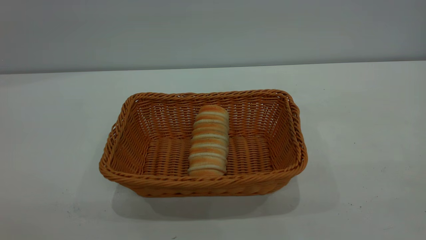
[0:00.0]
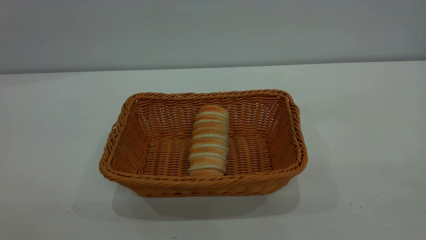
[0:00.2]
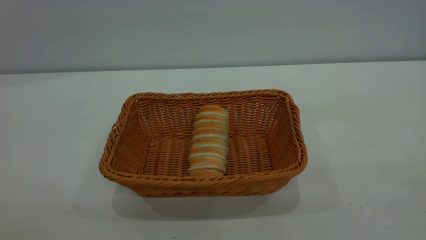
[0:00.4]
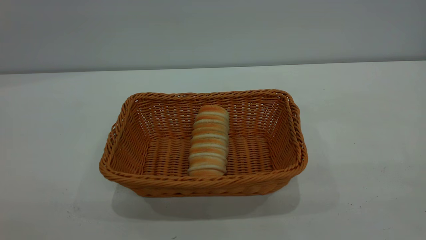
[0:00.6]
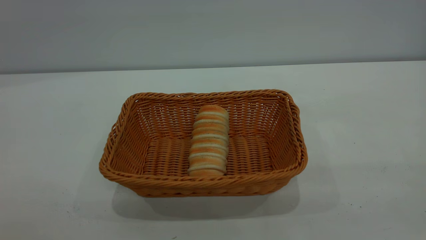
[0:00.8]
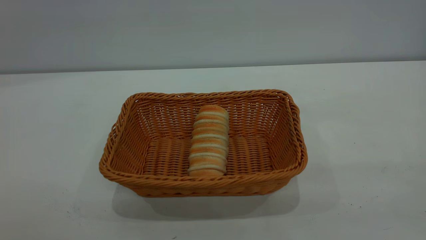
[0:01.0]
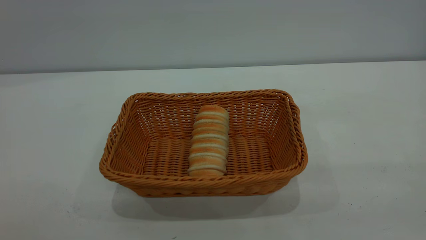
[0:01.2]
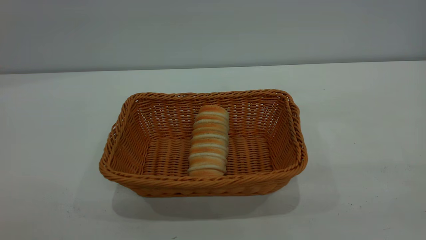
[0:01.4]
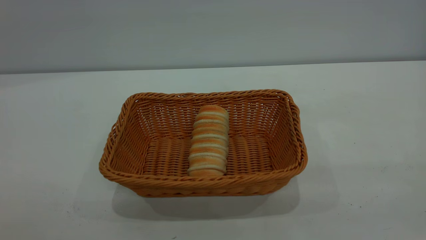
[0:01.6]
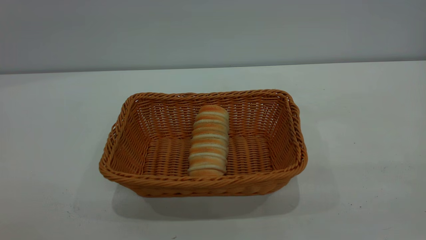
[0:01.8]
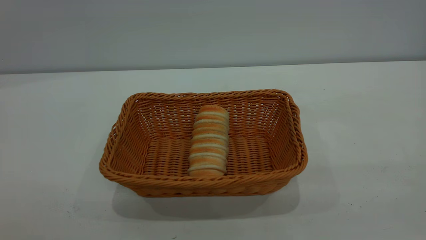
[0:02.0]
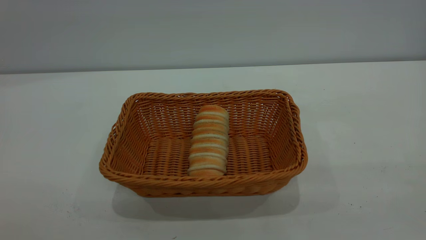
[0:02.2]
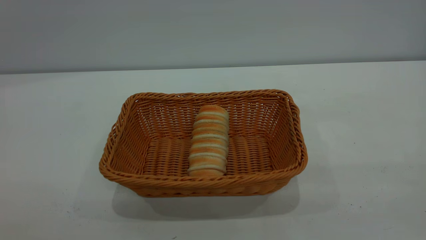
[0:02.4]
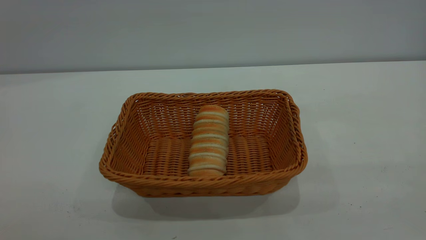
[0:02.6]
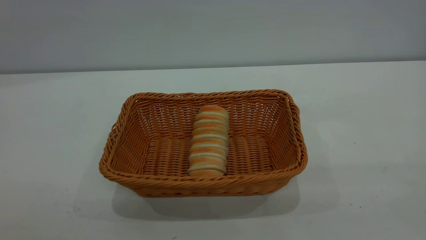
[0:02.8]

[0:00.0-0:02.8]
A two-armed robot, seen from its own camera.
Task of the whole recording: One hand grasps the yellow basket and places it in the middle of the table, while the other hand picks up the long bread and puts it into the yellow basket.
0:01.4 to 0:02.8: The two grippers keep their place.

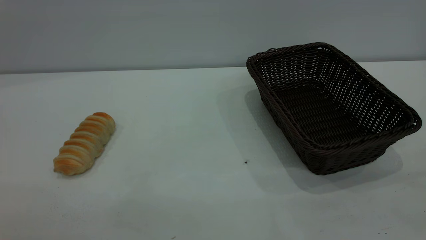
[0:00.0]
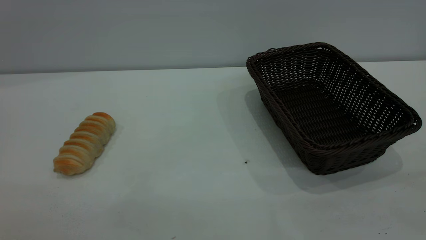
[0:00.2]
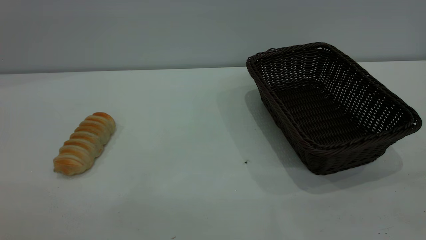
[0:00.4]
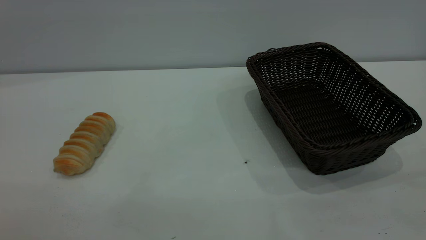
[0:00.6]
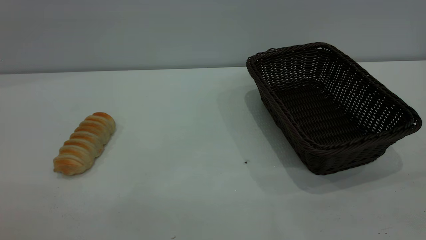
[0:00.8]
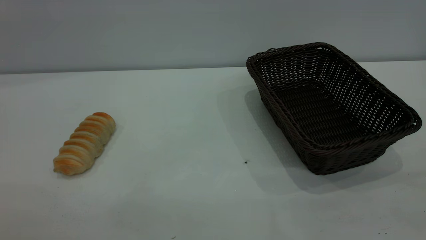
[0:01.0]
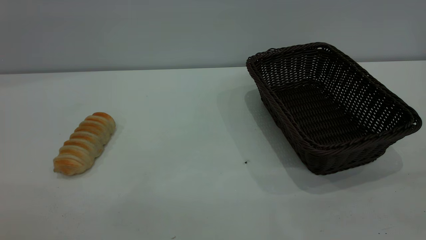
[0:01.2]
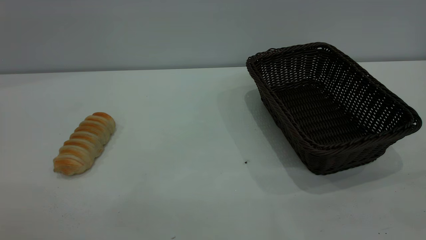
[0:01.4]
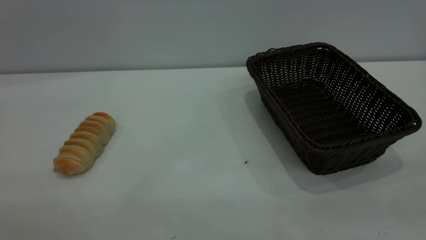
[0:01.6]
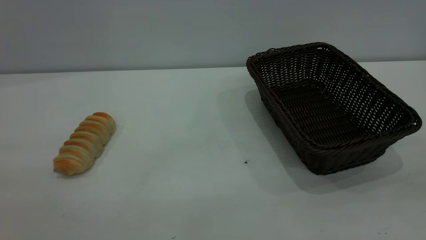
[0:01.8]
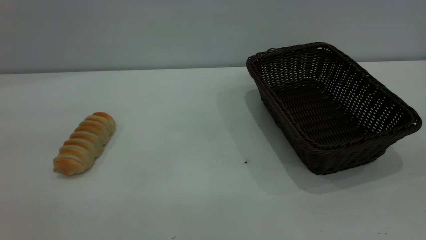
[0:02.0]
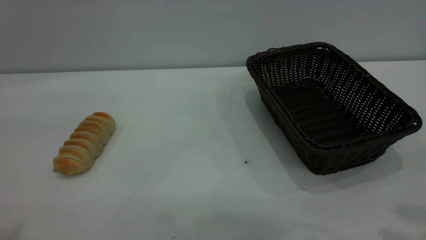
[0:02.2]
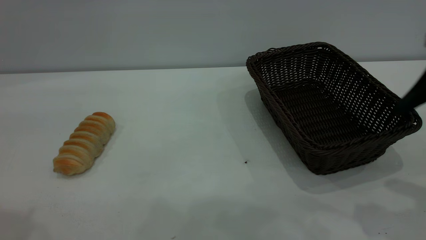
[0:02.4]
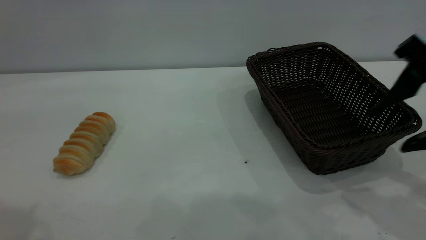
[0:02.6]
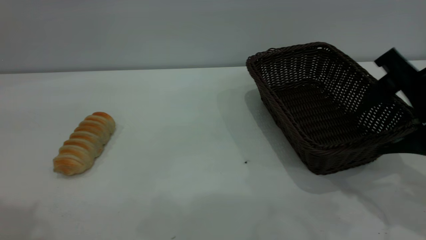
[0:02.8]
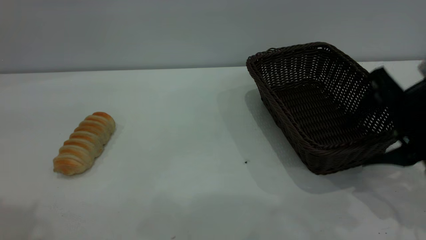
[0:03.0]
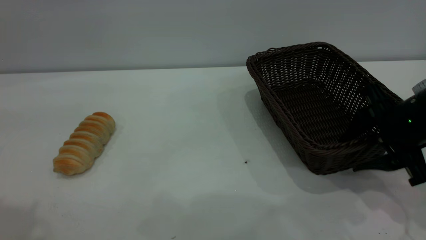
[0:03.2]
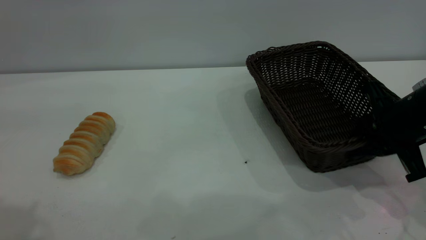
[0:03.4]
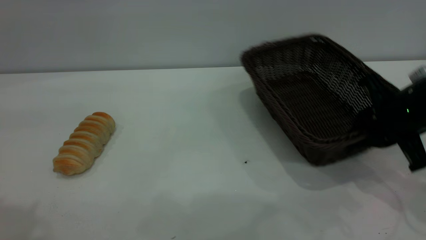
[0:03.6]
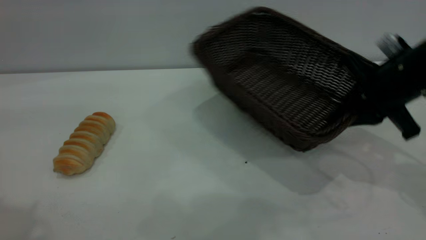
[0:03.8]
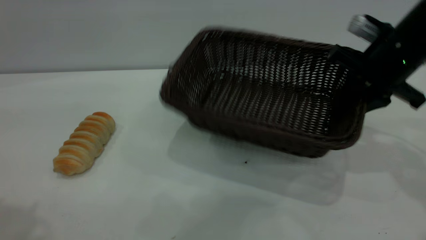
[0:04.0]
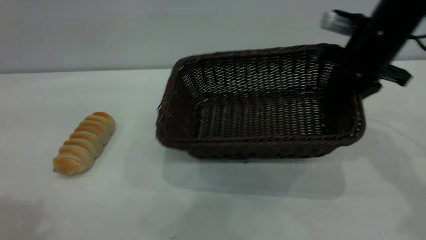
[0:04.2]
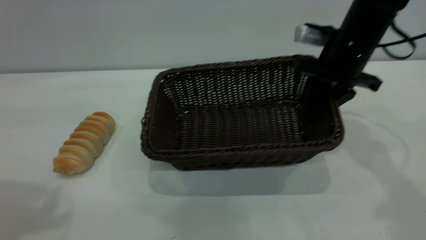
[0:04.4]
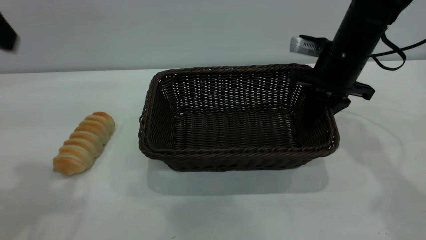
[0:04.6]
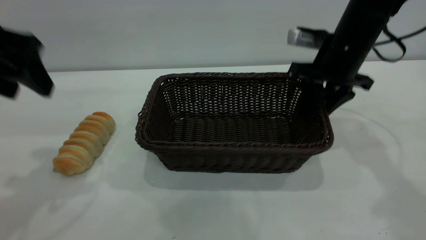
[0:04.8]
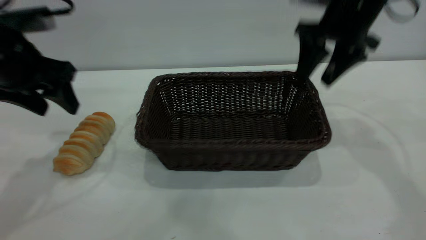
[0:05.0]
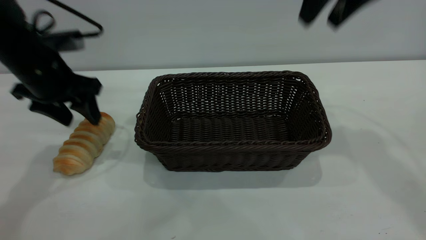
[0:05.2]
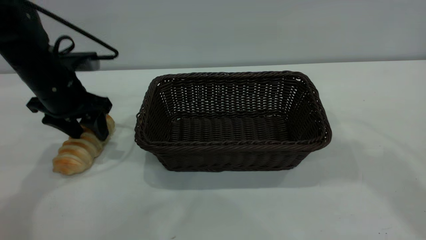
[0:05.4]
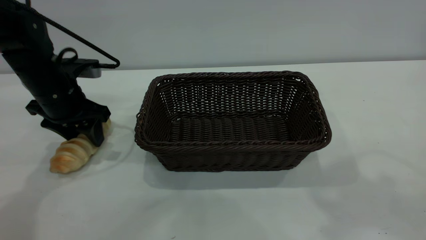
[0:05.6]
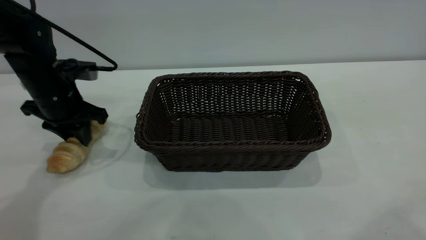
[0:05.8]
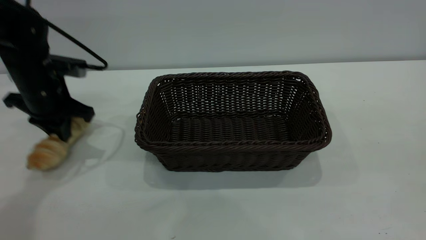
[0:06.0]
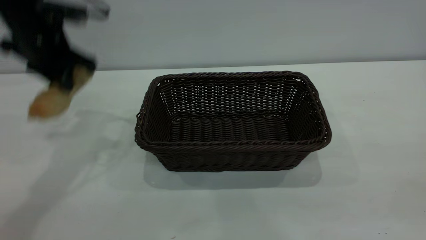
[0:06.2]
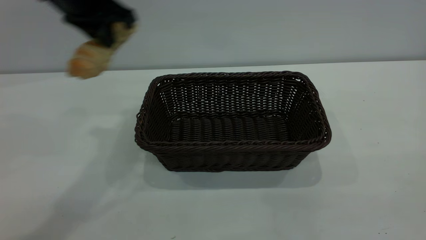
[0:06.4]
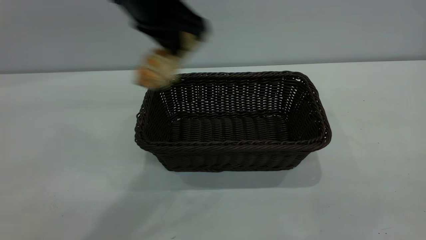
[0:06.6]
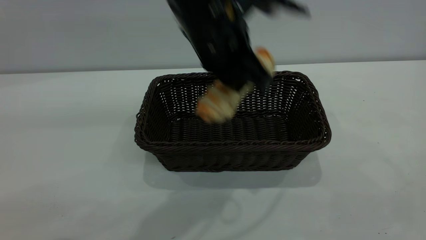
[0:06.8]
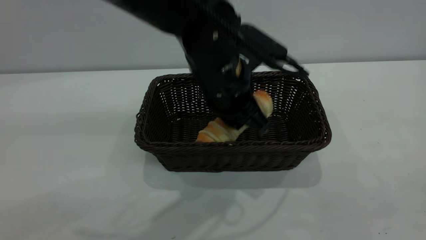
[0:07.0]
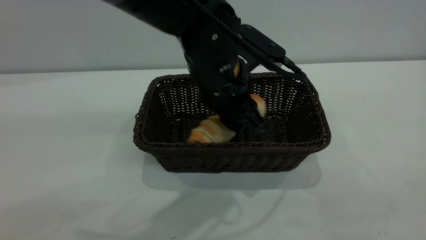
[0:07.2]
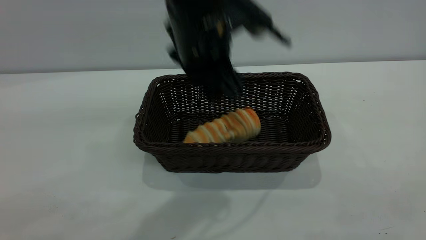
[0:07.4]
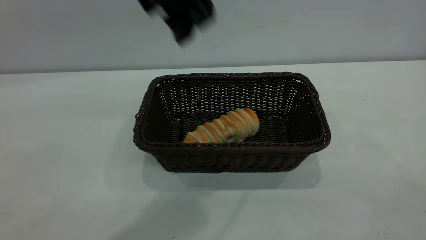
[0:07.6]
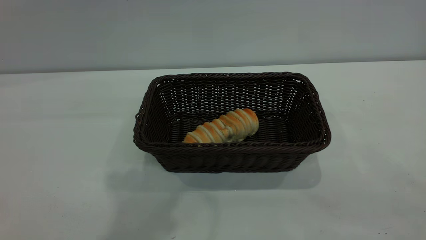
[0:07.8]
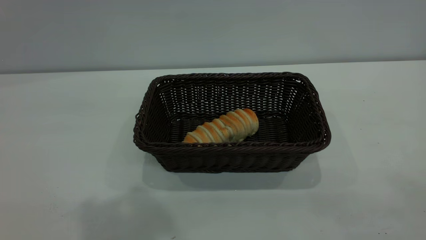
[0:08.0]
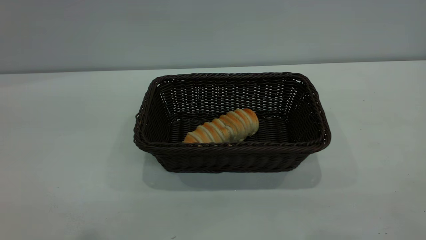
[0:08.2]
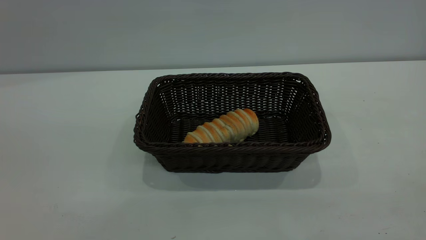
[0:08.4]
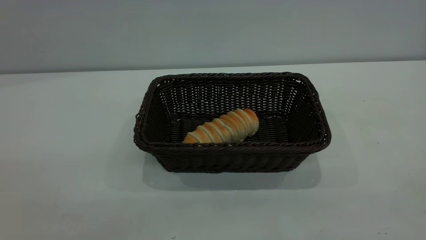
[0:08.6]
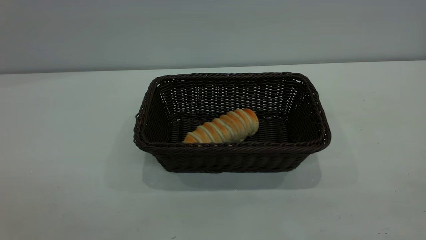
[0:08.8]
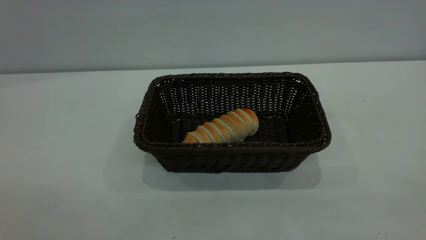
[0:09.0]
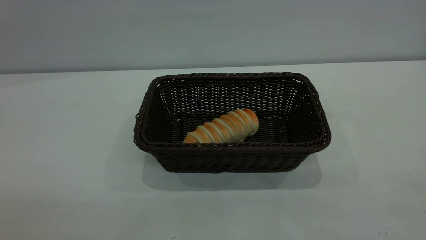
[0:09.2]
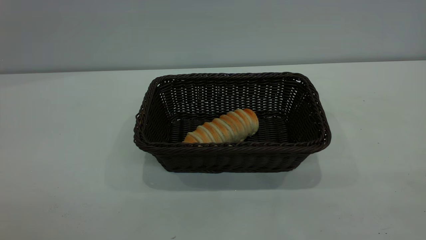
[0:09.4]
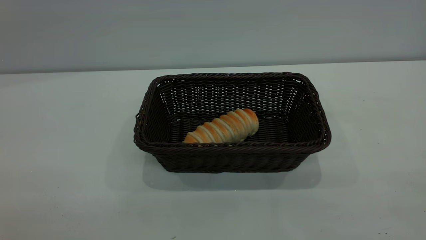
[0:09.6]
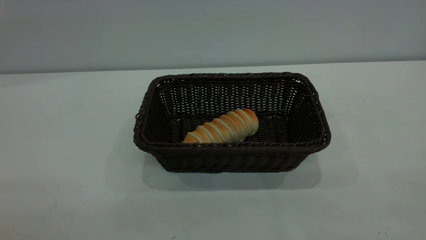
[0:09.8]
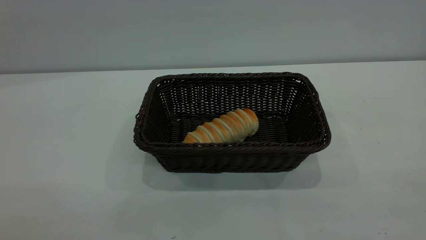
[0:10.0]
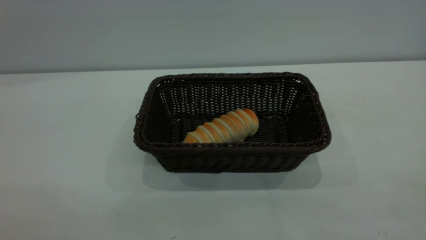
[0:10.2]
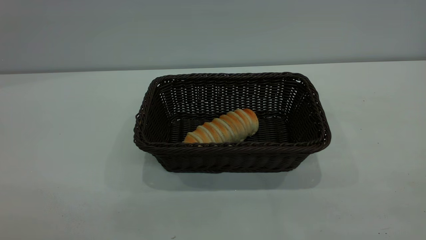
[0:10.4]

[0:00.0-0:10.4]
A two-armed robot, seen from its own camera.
Task of the whole recording: One hand grasps the black basket and places it in the middle of the table, while the other hand picks up the long bread and puts it into the black basket.
Step, 0:00.0 to 0:04.8: Move the basket to the center of view.
Step, 0:06.2 to 0:07.4: place the bread into the basket.
0:00.0 to 0:01.4: Both grippers stay about where they are.
0:01.4 to 0:03.0: The right gripper travels forward and downward by about 35 cm.
0:03.0 to 0:04.4: The right gripper heads forward and to the left, covering roughly 15 cm, and closes its fingers. The left gripper shifts by about 5 cm.
0:04.4 to 0:06.0: The left gripper shifts roughly 30 cm downward and forward, and closes up. The right gripper shifts about 40 cm backward and upward, and opens up.
0:06.0 to 0:07.4: The right gripper is displaced backward and downward by roughly 10 cm; the left gripper moves to the right and upward, approximately 30 cm, and opens.
0:07.4 to 0:09.0: The left gripper is displaced backward and to the left by about 40 cm.
